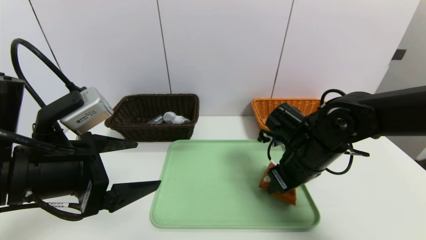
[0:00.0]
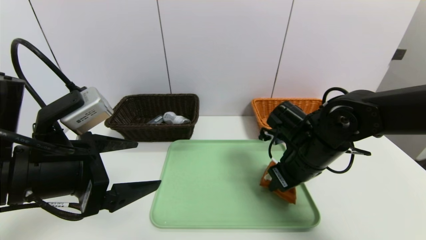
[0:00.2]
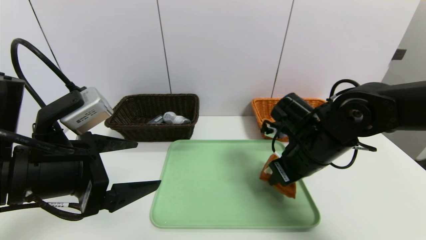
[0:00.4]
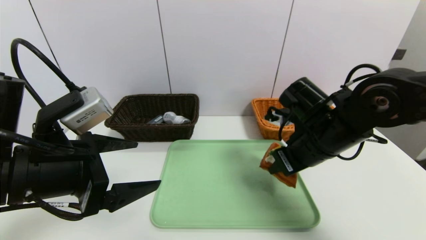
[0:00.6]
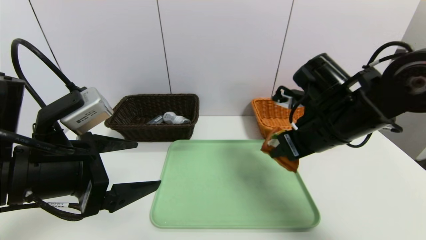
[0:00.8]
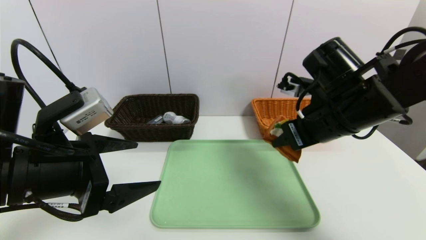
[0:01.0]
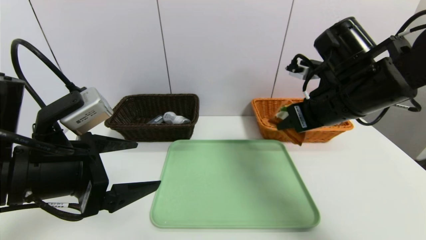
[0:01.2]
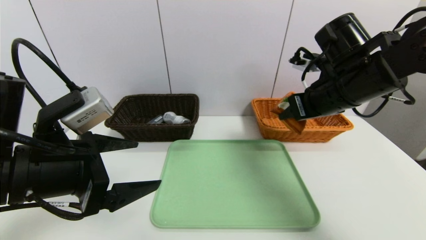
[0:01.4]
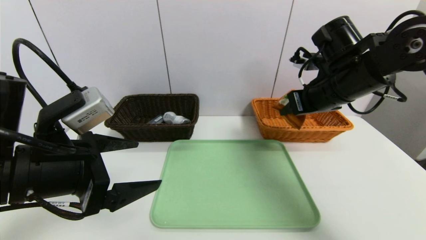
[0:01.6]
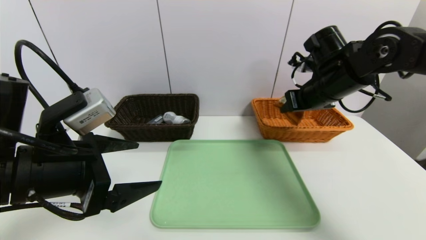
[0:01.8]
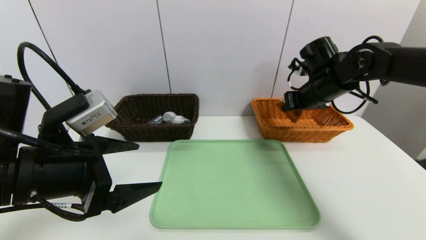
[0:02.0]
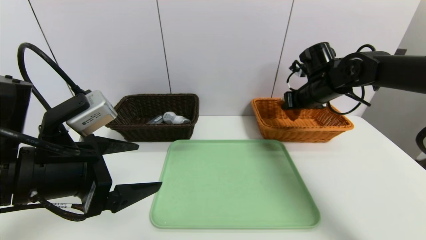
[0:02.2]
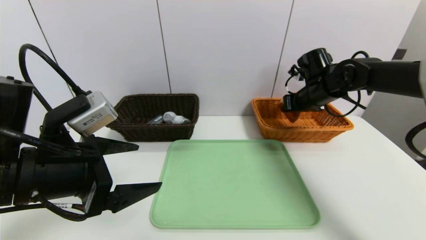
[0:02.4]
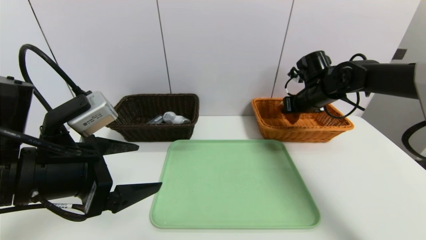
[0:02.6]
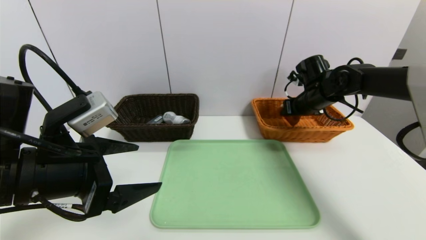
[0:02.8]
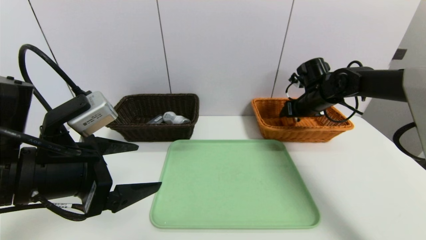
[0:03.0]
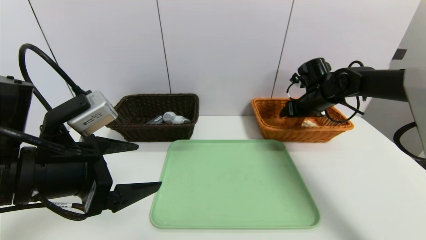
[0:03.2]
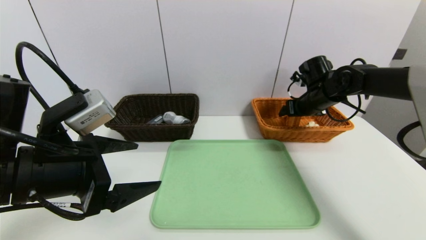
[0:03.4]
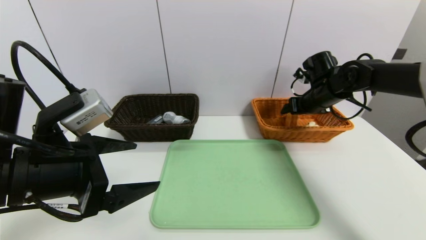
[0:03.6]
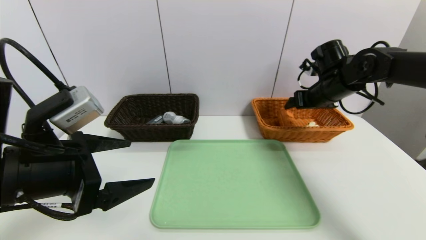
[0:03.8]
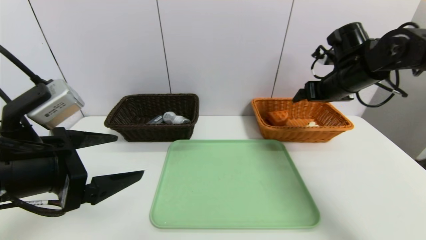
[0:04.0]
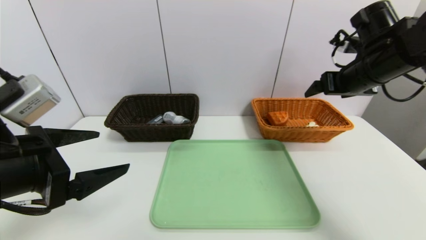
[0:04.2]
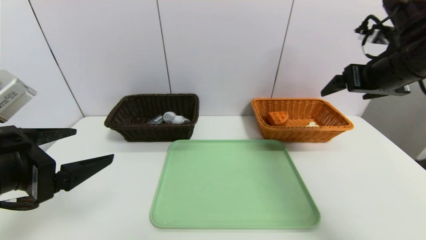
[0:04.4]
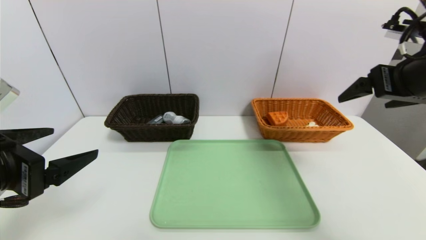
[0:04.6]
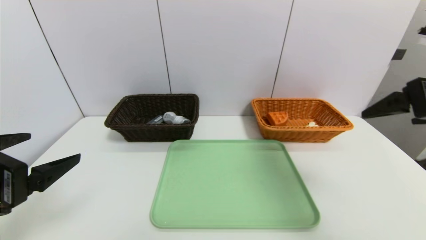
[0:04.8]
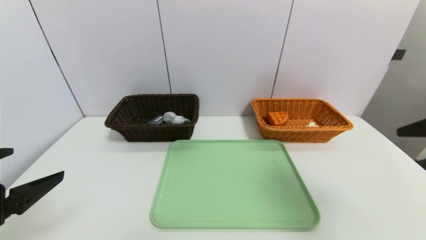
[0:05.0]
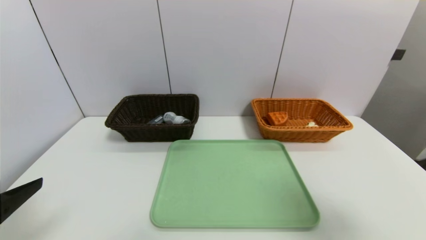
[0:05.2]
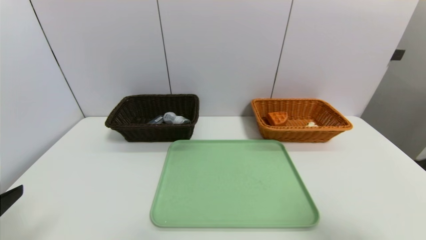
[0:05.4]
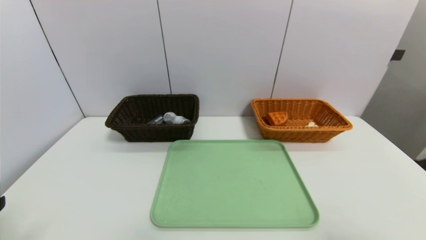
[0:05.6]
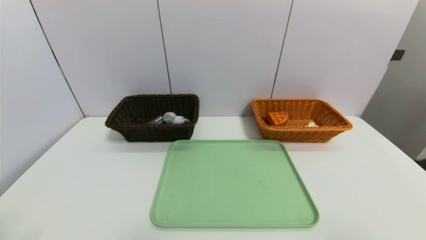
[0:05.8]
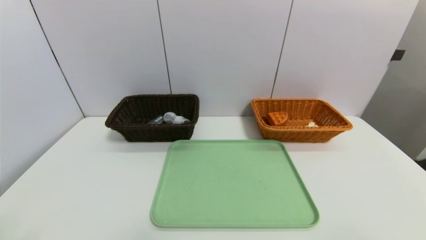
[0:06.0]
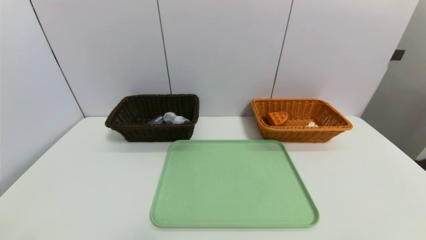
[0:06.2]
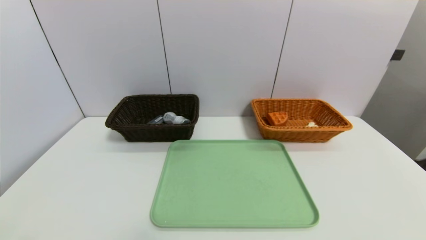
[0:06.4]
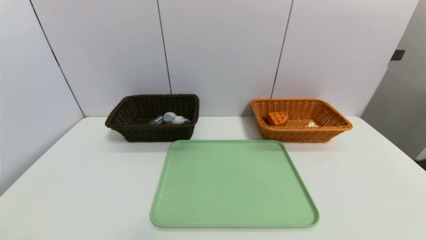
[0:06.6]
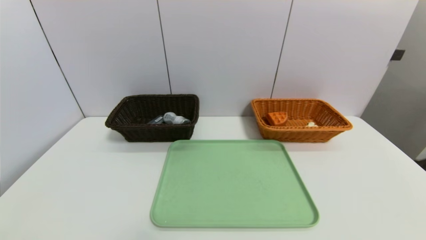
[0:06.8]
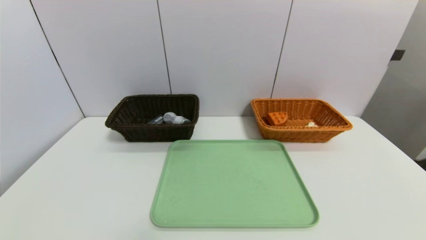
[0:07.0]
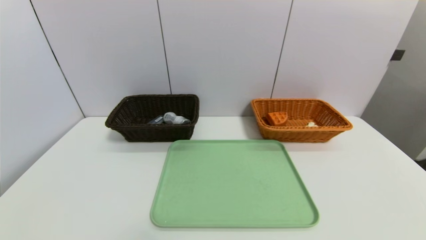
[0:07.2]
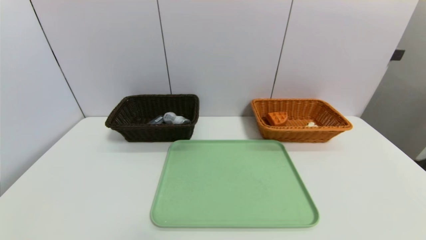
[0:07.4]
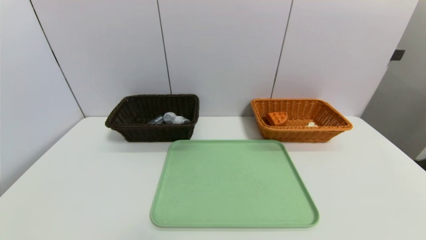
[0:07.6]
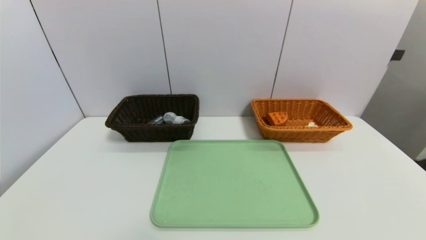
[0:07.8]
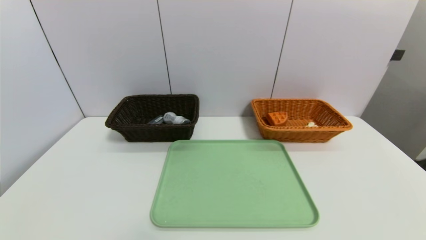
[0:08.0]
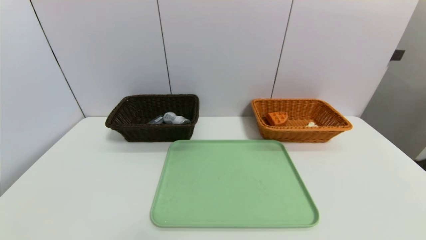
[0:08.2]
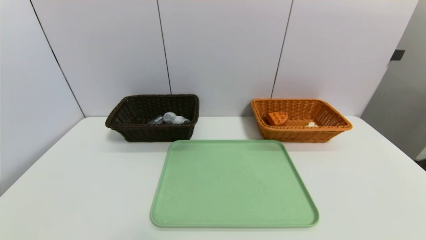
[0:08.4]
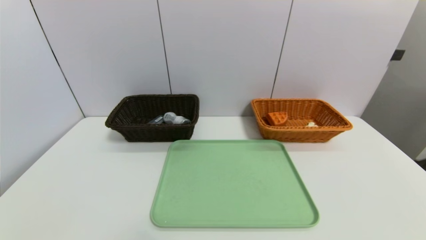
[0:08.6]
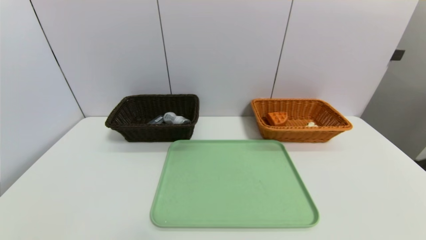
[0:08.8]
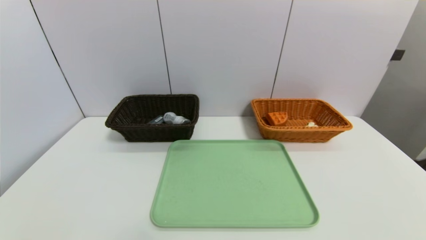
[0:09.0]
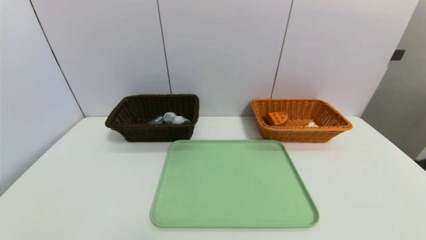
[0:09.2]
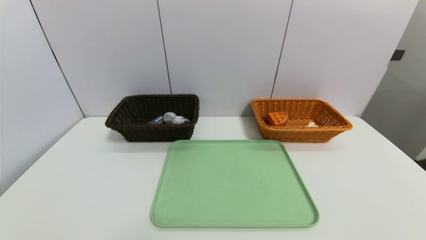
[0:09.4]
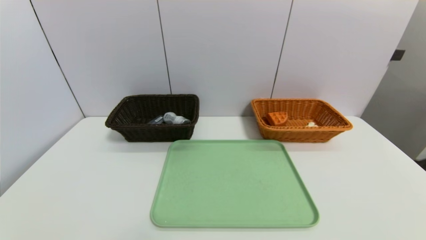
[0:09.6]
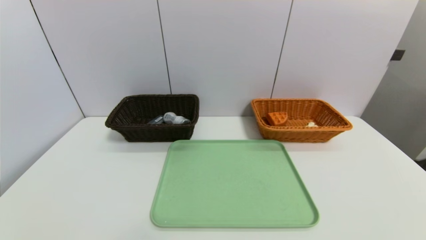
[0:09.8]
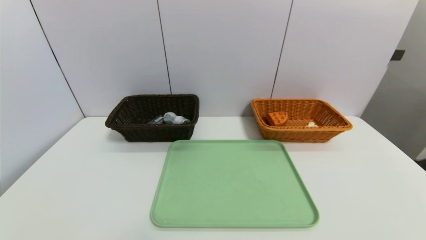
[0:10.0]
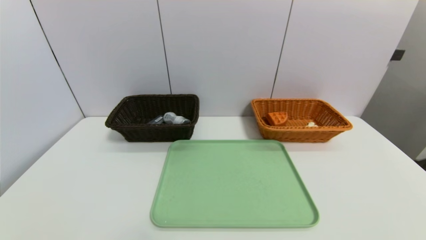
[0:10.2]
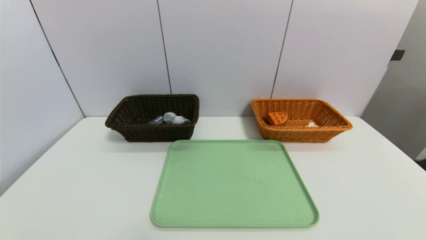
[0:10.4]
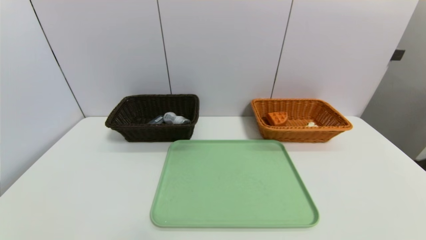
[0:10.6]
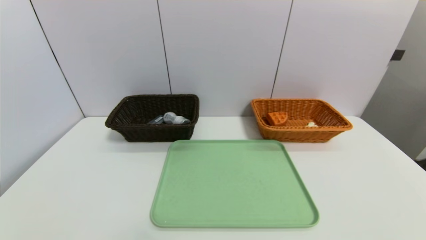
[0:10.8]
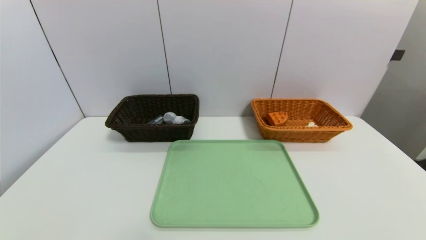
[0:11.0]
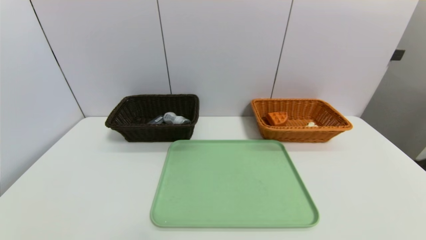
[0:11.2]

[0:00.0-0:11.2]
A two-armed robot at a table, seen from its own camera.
Task of the whole recording: place the food in the right basket with the right gripper, and place the non food items in the left basket with the left gripper.
Step, 0:00.0 to 0:03.2: Grasp the triangle cake and put it in the right basket.
0:00.0 to 0:01.6: The right gripper moves upward and forward, some 15 cm.
0:01.6 to 0:03.2: The right gripper moves forward and downward, approximately 15 cm, and opens.
0:03.2 to 0:04.8: The left gripper heads to the left and backward, covering roughly 10 cm. The right gripper is displaced backward and upward by roughly 30 cm.
0:04.8 to 0:06.4: The left gripper goes approximately 10 cm backward. The right gripper is displaced backward by approximately 20 cm.

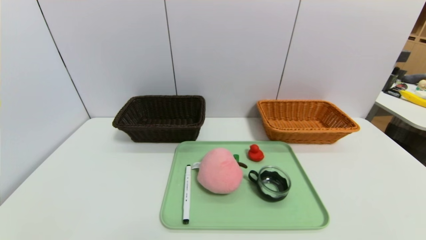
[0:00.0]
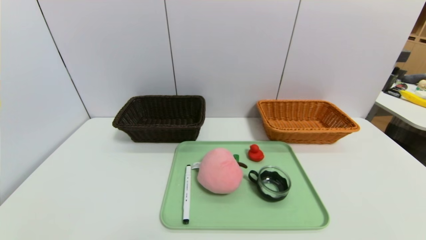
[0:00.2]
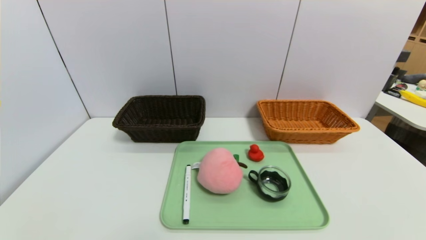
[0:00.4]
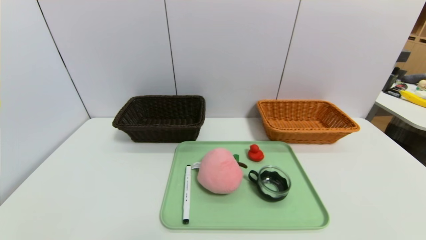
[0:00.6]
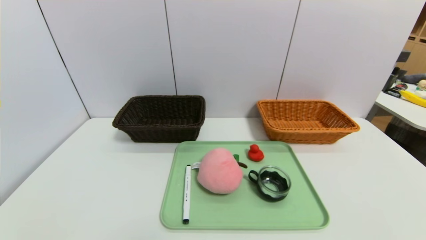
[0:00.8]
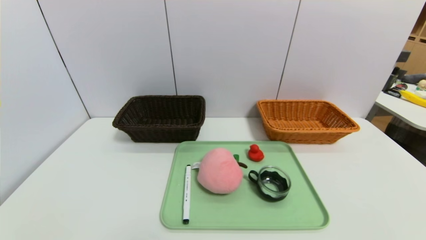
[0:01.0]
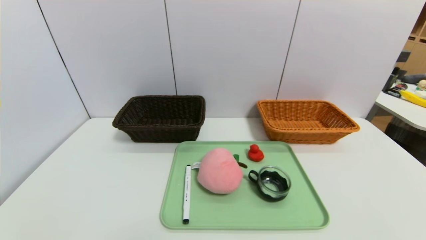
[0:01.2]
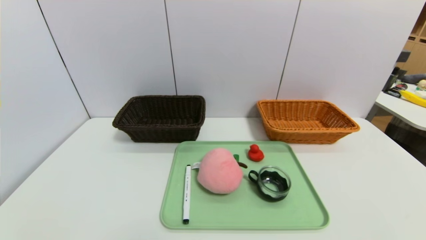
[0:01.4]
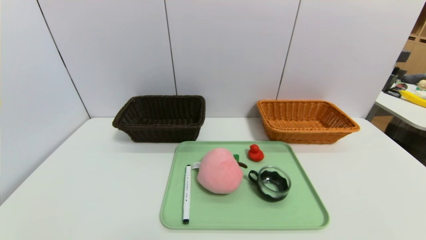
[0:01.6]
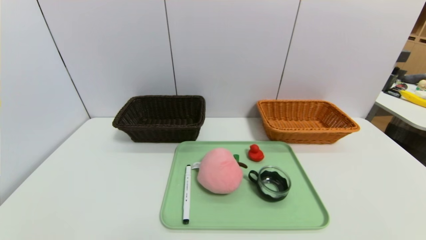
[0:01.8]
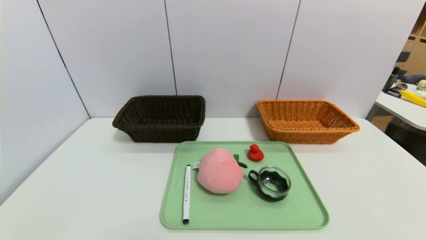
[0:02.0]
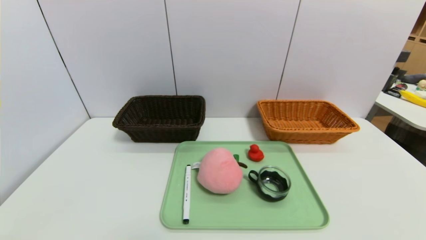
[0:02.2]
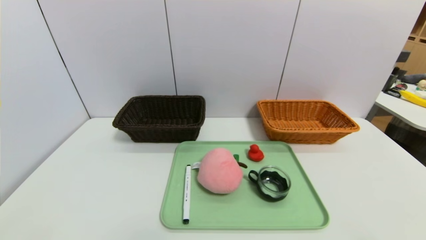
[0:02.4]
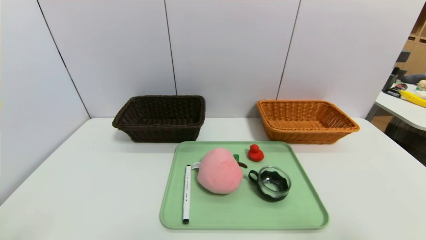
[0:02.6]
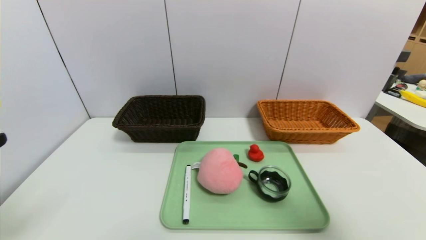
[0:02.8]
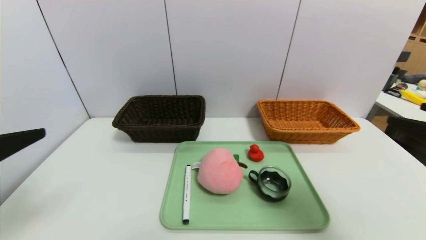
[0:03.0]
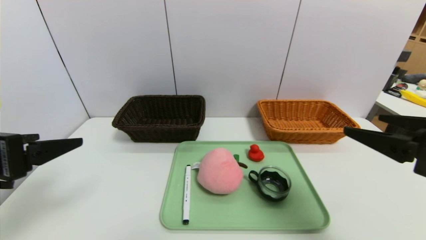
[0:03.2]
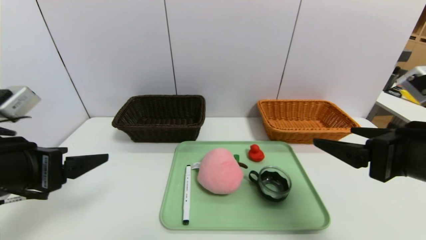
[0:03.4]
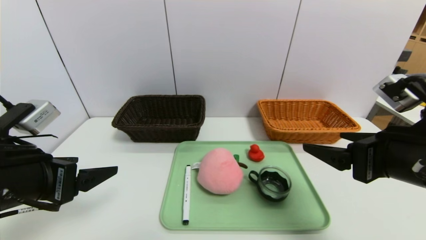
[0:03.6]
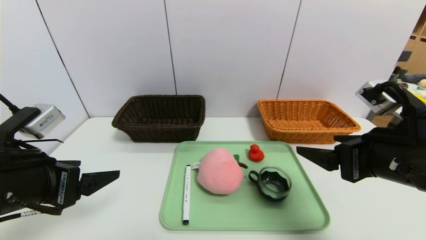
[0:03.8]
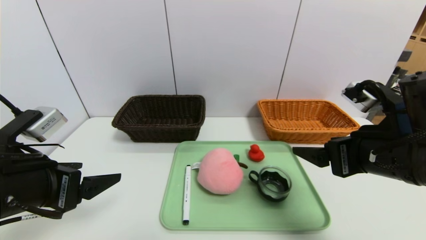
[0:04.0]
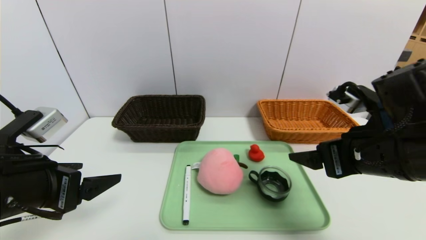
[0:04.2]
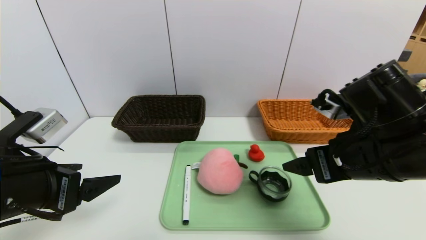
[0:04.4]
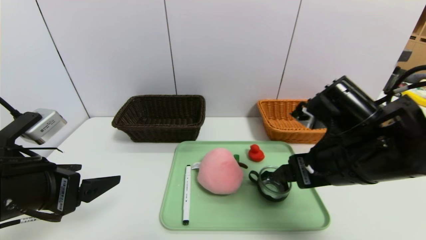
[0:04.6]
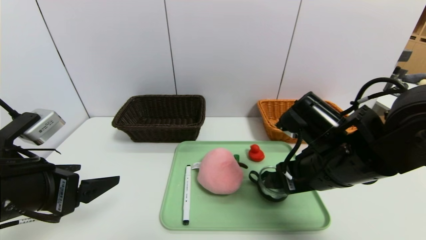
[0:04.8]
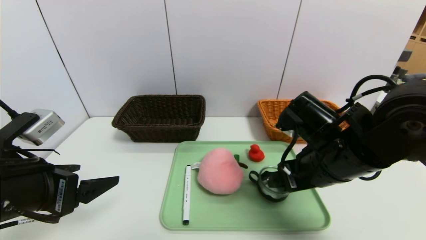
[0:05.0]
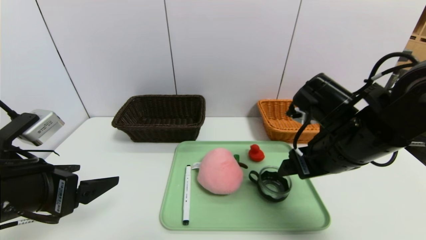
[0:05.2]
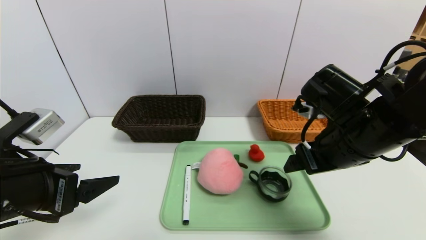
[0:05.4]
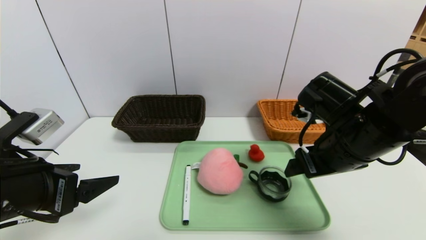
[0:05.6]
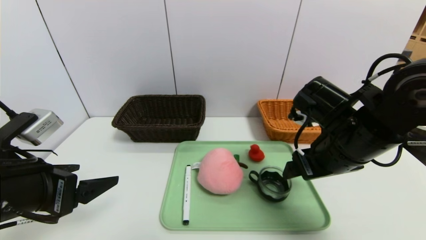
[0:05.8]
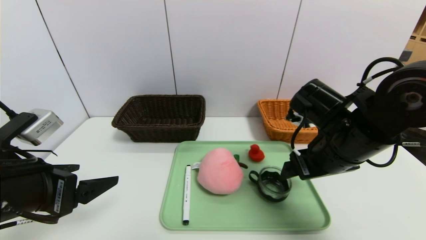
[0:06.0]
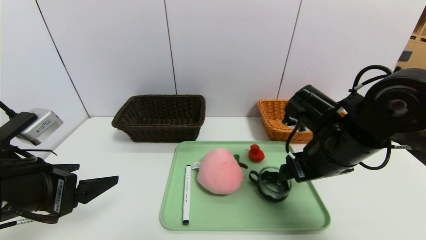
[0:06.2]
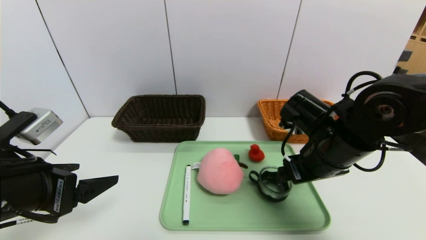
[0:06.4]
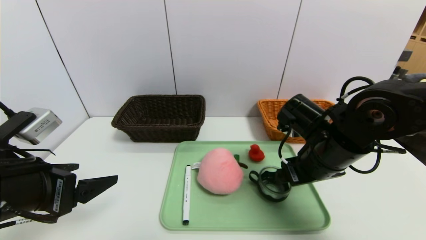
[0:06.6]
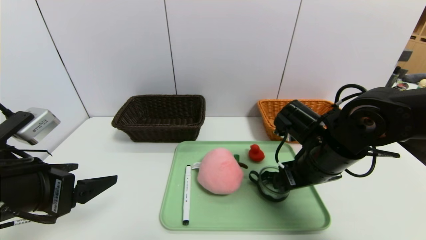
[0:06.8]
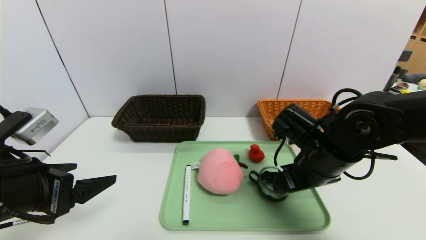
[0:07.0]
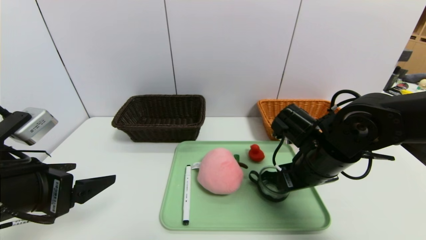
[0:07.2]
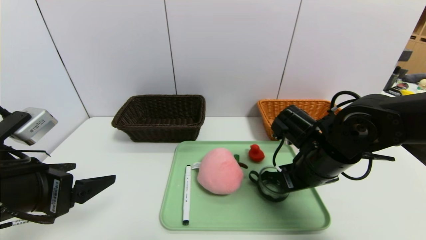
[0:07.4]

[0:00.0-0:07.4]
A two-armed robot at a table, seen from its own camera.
Task of the whole recording: place the food in the right basket with the right gripper, and place the non food items in the left basket with the left gripper.
0:00.0 to 0:01.4: Neither gripper changes place.
0:01.4 to 0:03.0: Both grippers travel together upward and forward, roughly 25 cm.
0:03.0 to 0:04.4: The left gripper moves downward, approximately 5 cm. The right gripper goes about 15 cm to the left and forward.
0:04.4 to 0:06.0: The right gripper shifts approximately 5 cm forward.
0:06.0 to 0:07.4: The right gripper ends up some 5 cm from where it was, and closes up.
